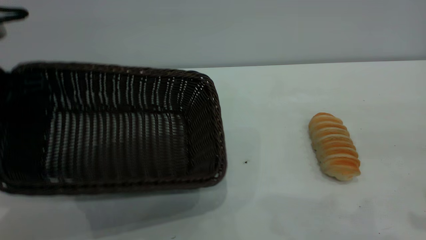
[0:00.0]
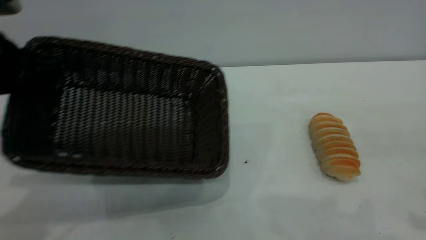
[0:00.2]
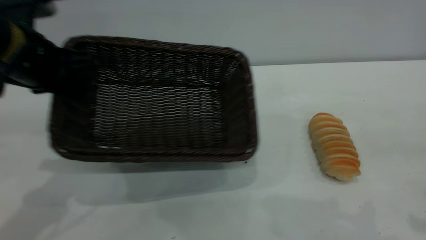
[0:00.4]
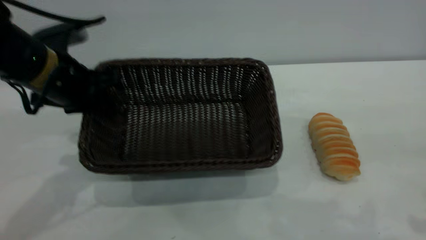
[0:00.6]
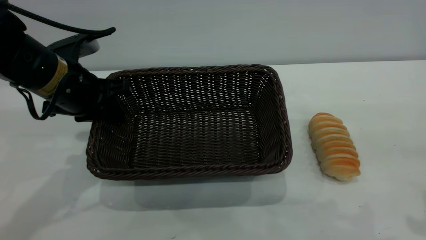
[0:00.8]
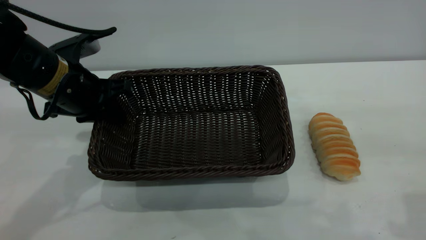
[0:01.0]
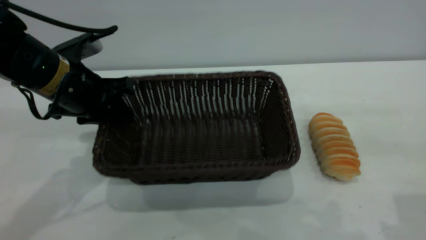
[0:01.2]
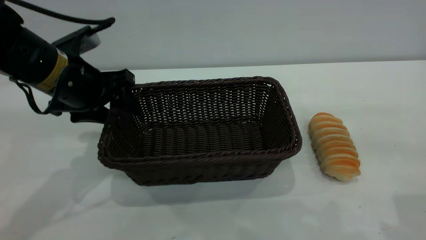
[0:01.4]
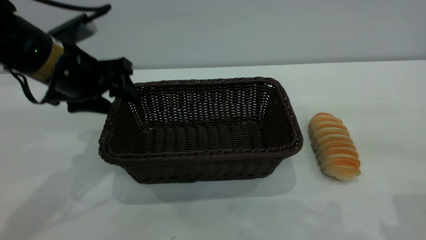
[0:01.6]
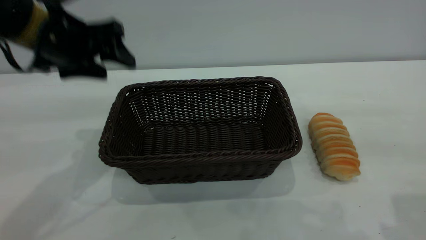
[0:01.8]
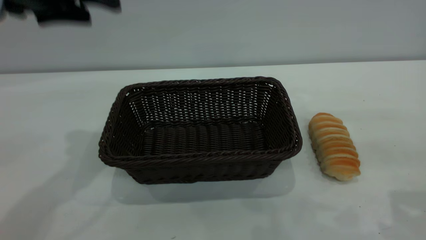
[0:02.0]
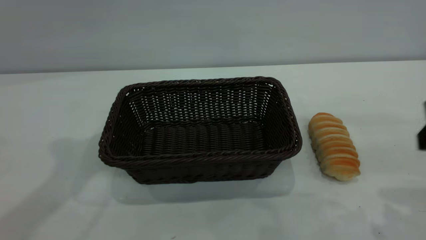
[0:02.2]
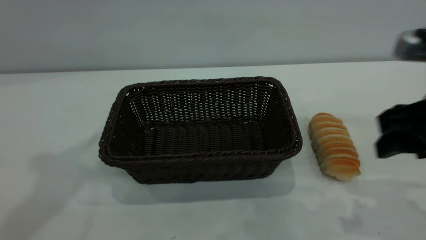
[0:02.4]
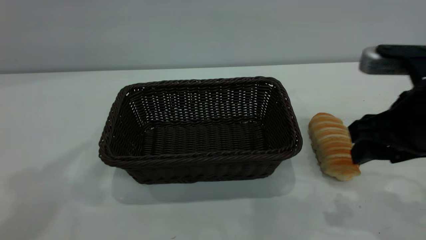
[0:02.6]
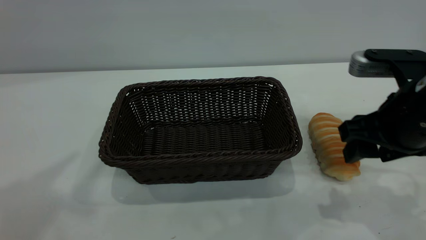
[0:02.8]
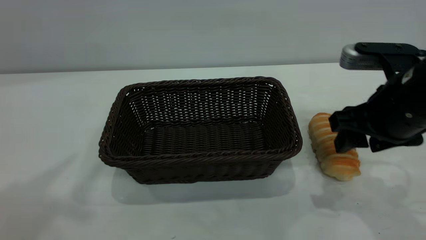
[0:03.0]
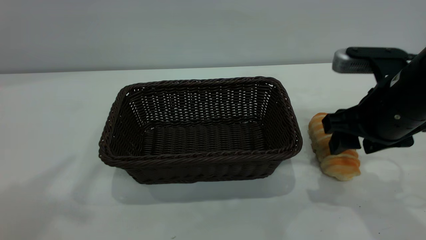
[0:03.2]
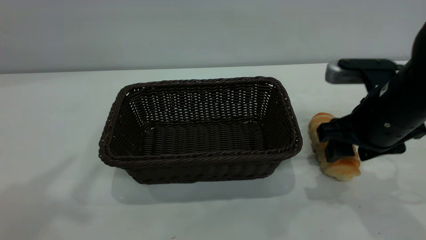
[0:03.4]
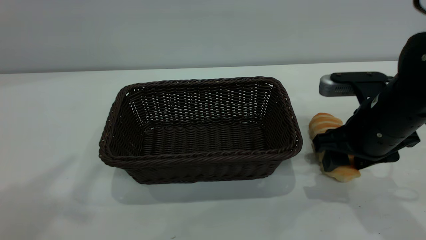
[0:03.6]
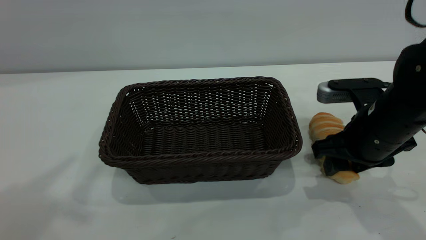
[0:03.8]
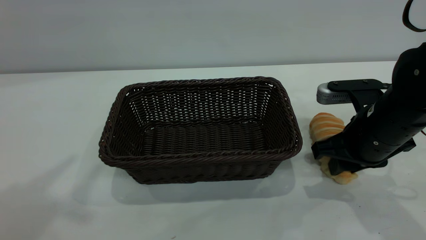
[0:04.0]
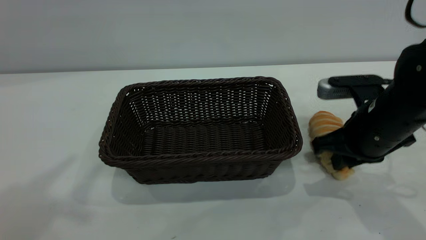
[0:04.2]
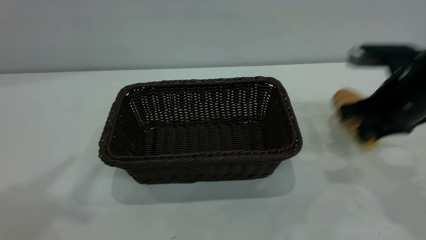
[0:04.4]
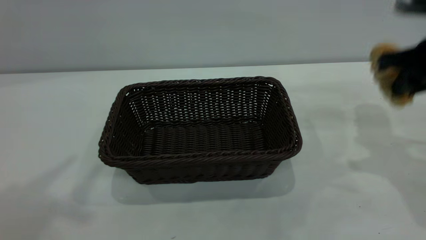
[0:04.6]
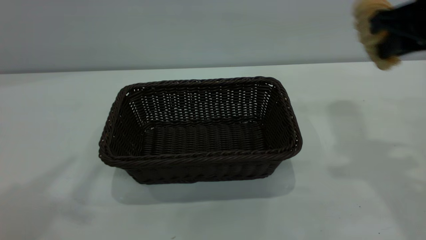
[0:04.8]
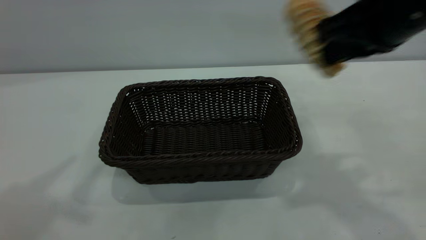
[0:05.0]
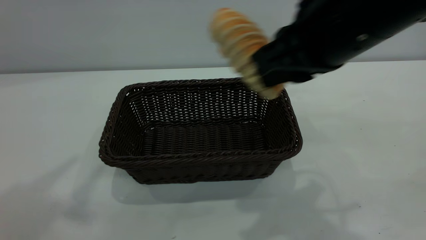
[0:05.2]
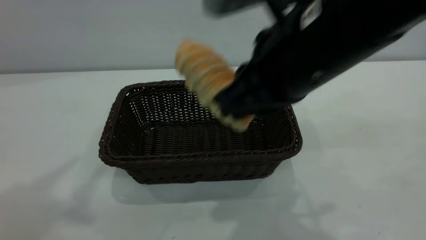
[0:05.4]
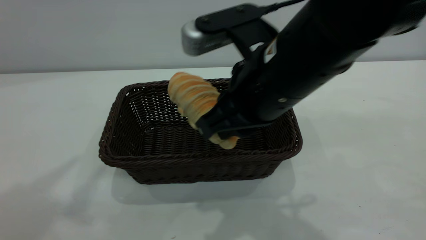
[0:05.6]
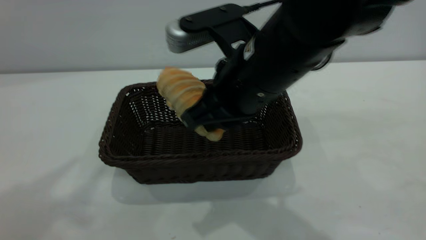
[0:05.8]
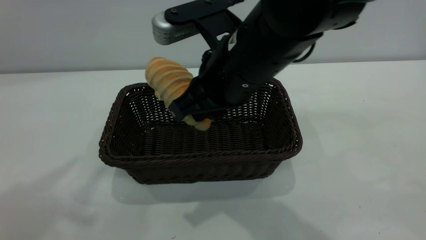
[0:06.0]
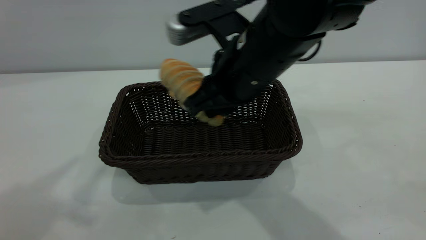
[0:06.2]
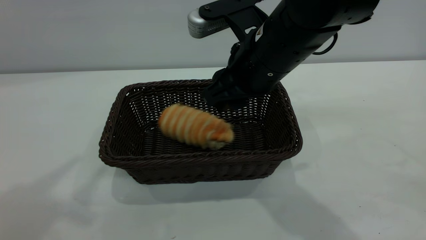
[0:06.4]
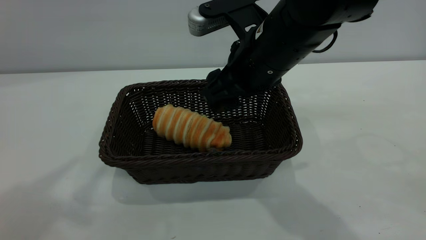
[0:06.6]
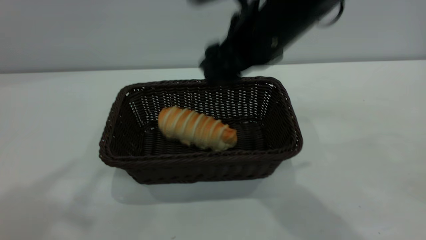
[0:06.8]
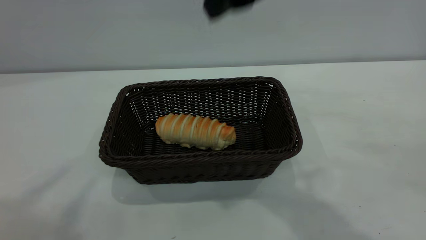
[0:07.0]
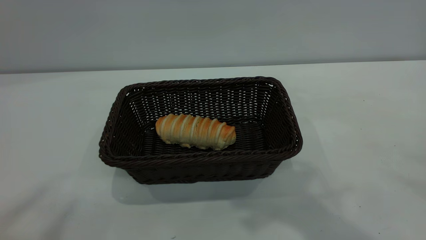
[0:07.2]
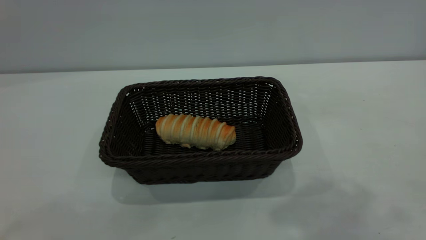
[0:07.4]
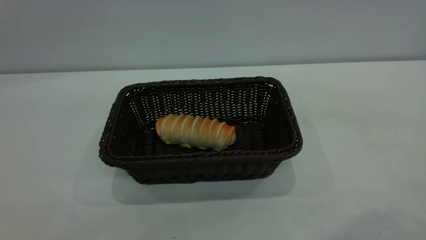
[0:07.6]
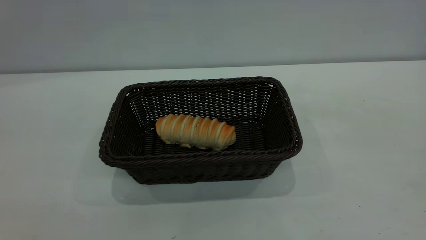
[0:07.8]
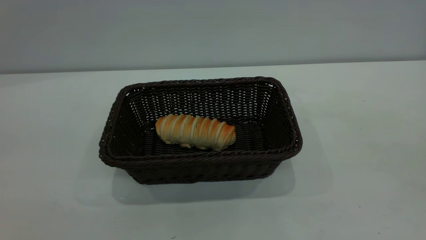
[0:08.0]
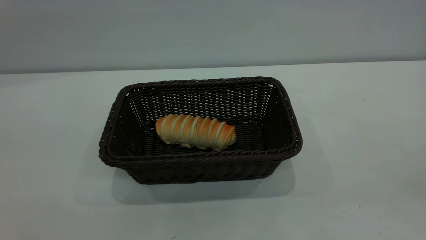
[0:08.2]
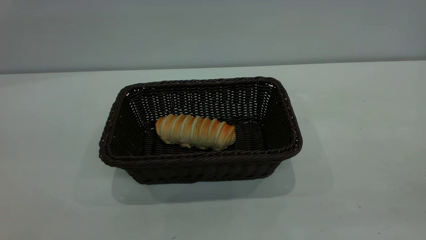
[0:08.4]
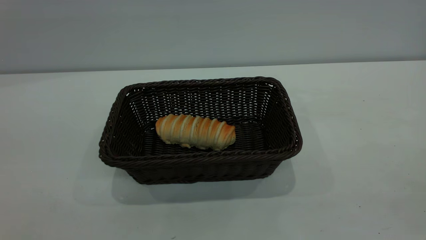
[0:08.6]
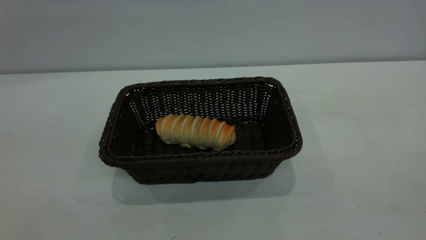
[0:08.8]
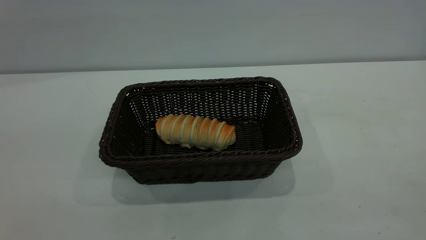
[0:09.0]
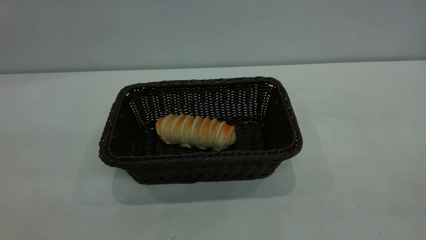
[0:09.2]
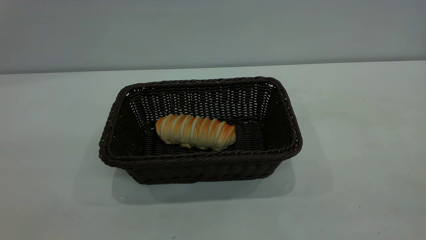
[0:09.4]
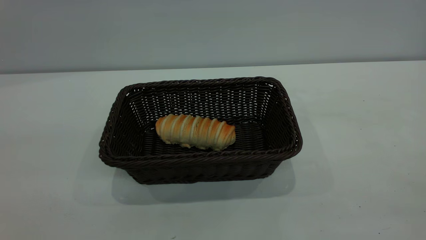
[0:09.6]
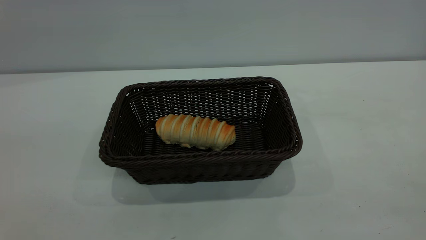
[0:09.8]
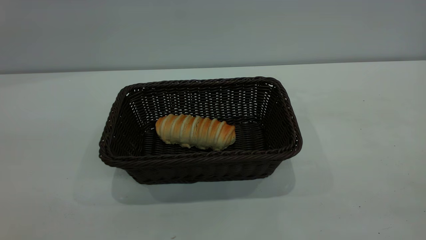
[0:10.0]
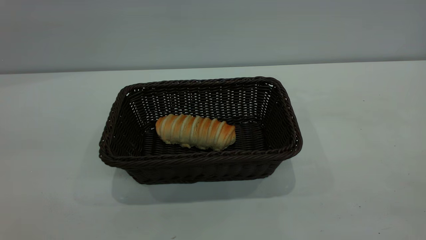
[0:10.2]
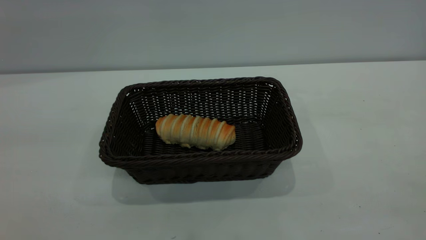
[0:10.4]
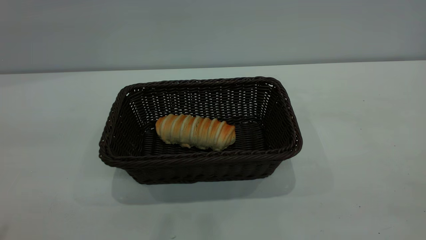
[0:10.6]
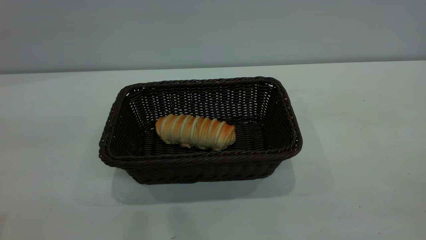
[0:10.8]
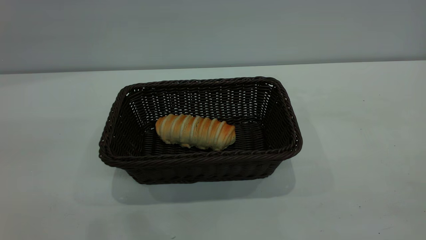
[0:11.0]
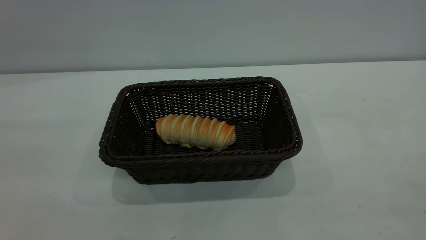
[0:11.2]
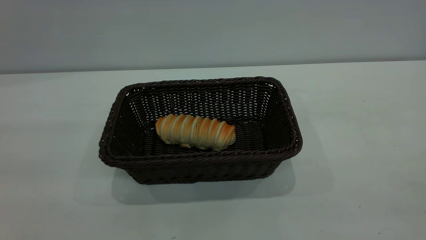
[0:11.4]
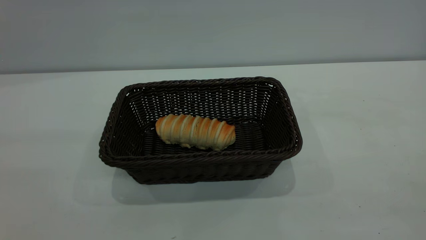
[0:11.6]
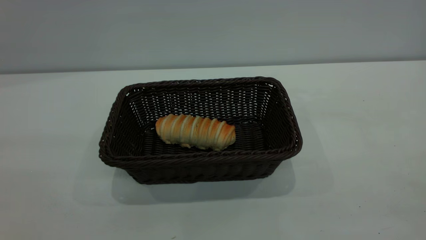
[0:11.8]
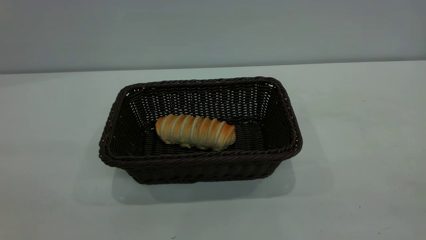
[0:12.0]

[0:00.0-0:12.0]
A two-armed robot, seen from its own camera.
Task of the whole recording: One hand grasps the black basket and places it in the middle of the table, while the other hand picks up the long bread and puts it into the black basket.
Step, 0:04.6 to 0:06.8: place the bread into the basket.
0:00.0 to 0:01.6: The left gripper goes about 10 cm to the right and forward, and opens up.
0:01.6 to 0:03.0: The left gripper travels upward and backward by roughly 30 cm. The right gripper travels downward, forward and to the left by some 15 cm.
0:03.0 to 0:04.4: The right gripper changes place by roughly 5 cm, and closes.
0:04.4 to 0:06.0: The right gripper is displaced to the left by approximately 20 cm.
0:06.0 to 0:07.6: The right gripper moves upward, to the right and backward, about 30 cm, and opens its fingers. Meanwhile the left gripper moves backward, some 15 cm.

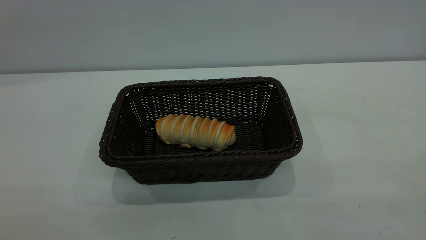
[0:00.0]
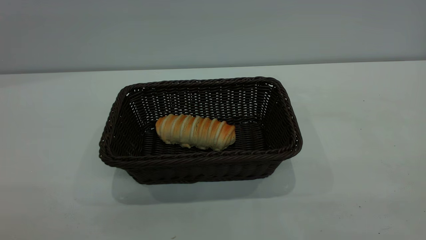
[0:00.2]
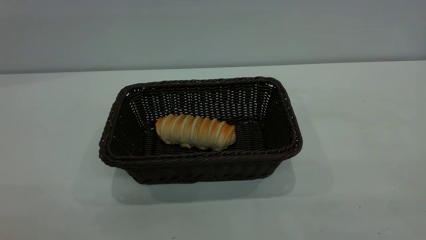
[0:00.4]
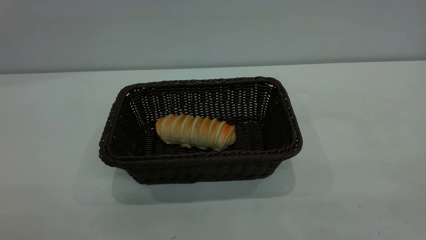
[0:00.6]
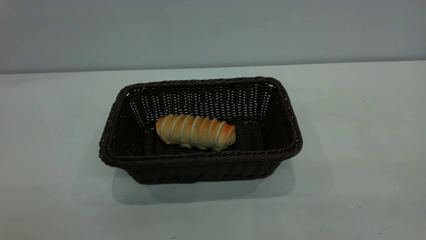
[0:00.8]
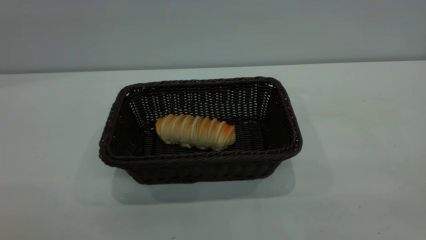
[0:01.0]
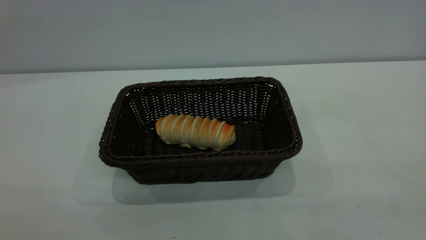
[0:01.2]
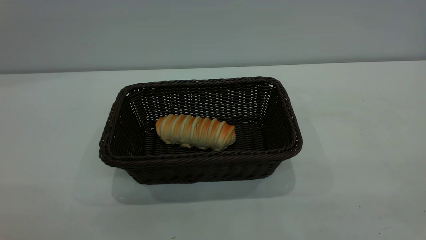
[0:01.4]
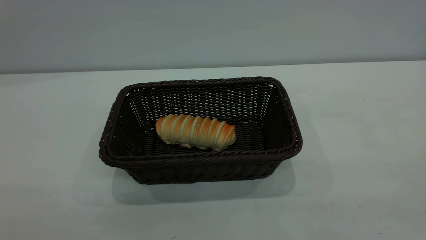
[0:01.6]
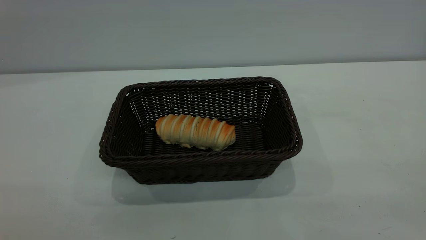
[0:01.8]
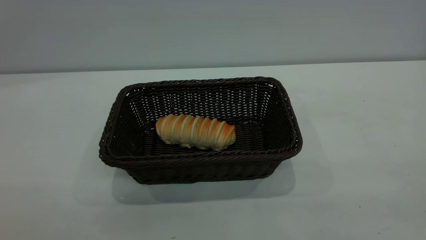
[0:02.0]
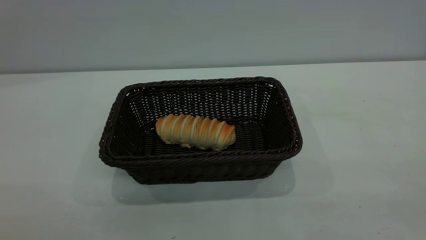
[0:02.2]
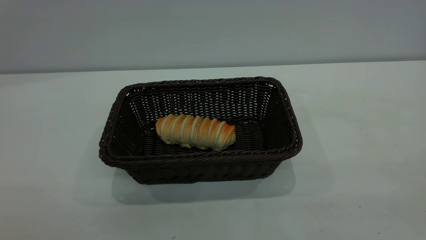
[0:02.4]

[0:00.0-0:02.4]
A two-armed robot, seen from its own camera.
Task of the whole recording: One hand grasps the black basket and places it in the middle of the table, while the other hand picks up the long bread and puts it into the black basket.
0:01.2 to 0:02.4: Neither gripper changes place.
